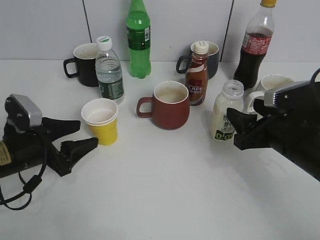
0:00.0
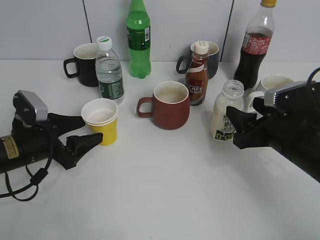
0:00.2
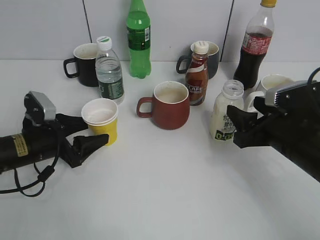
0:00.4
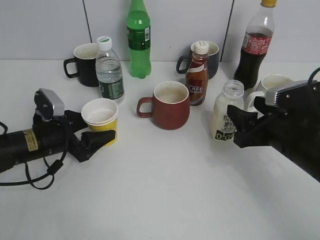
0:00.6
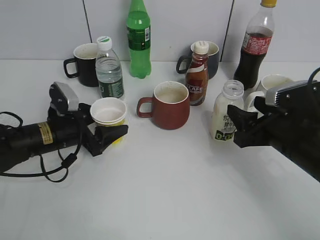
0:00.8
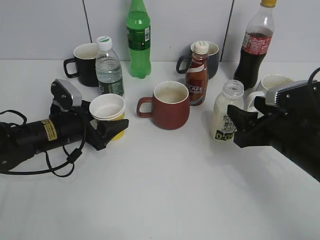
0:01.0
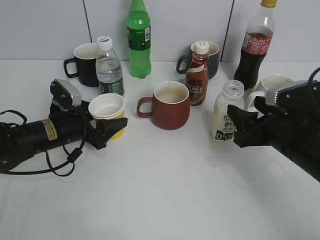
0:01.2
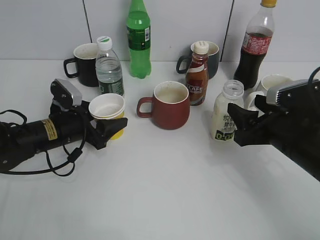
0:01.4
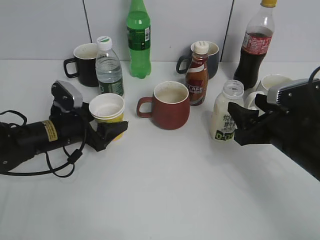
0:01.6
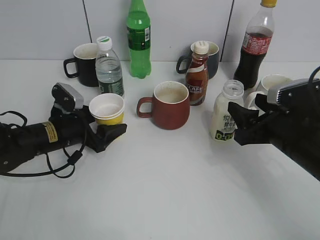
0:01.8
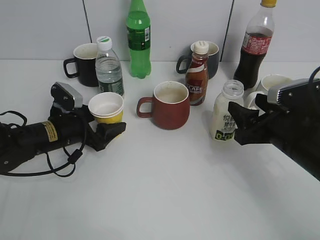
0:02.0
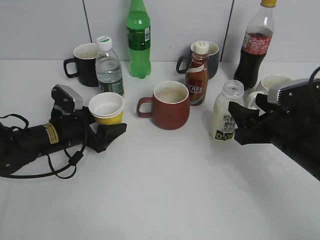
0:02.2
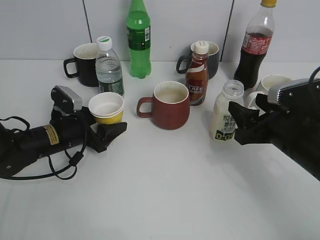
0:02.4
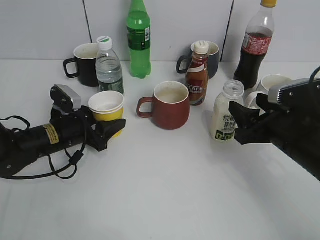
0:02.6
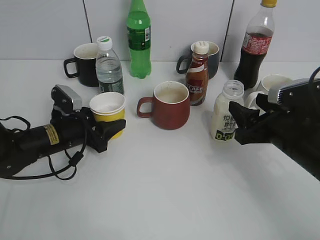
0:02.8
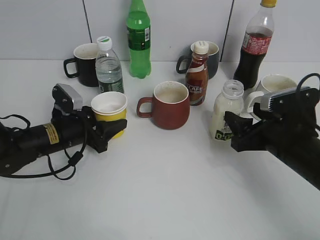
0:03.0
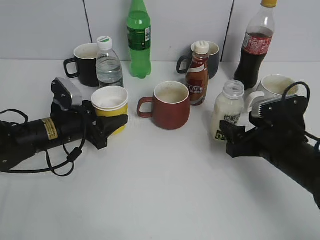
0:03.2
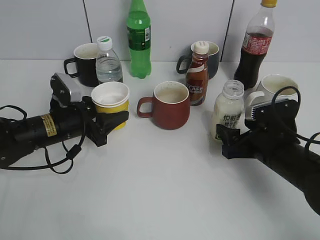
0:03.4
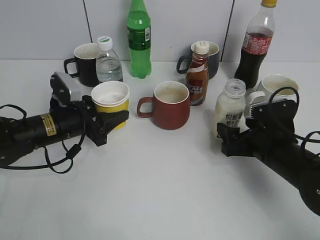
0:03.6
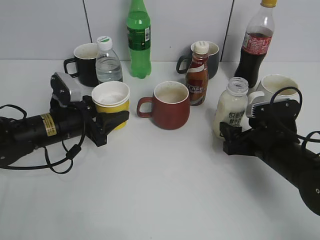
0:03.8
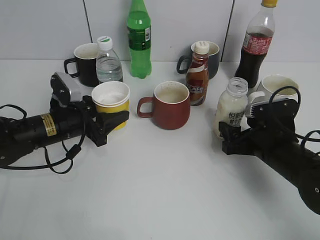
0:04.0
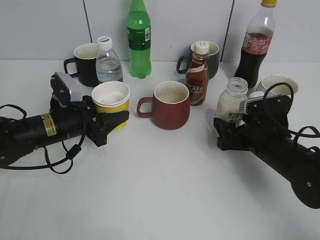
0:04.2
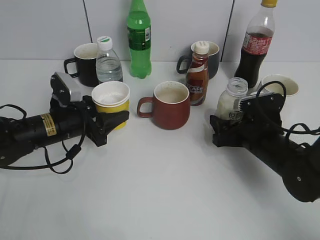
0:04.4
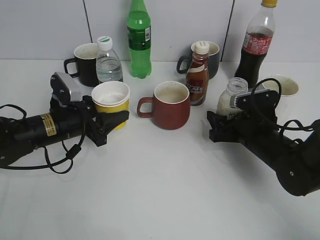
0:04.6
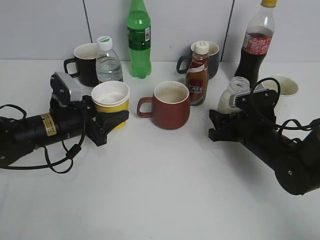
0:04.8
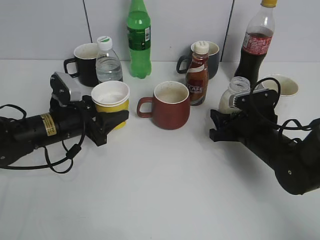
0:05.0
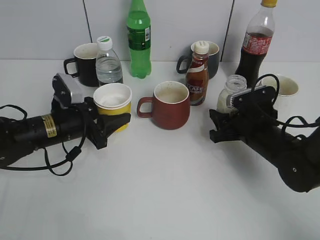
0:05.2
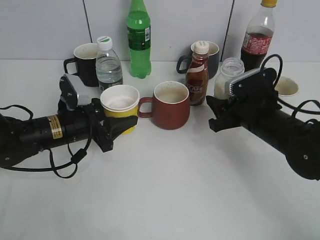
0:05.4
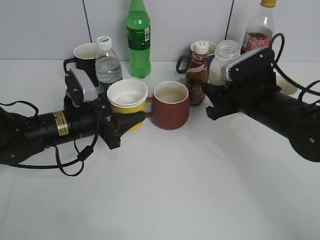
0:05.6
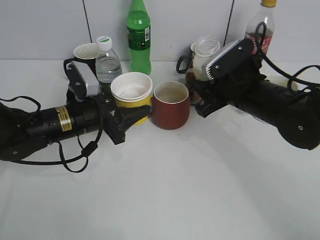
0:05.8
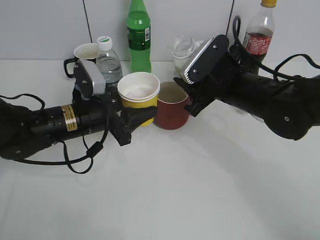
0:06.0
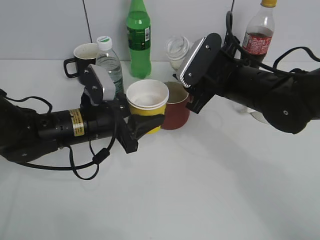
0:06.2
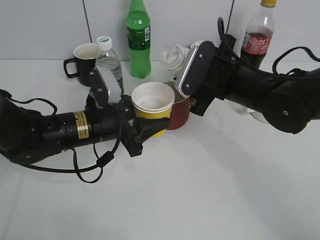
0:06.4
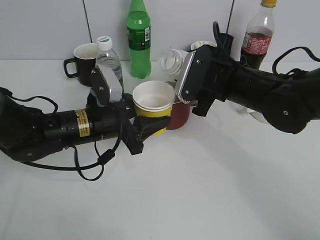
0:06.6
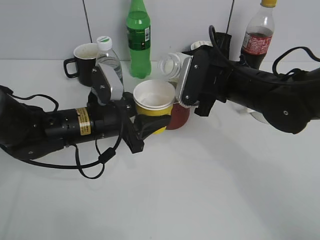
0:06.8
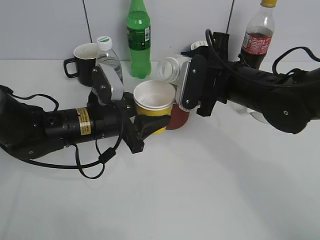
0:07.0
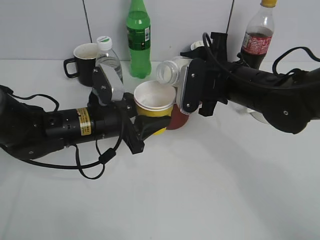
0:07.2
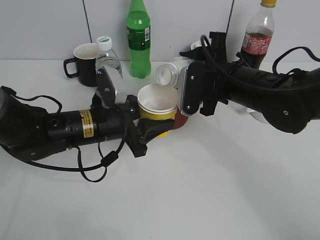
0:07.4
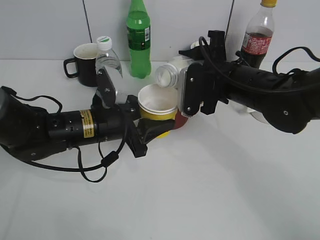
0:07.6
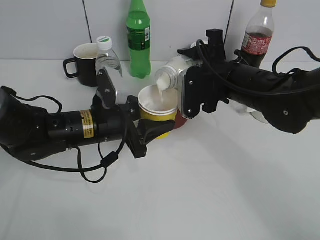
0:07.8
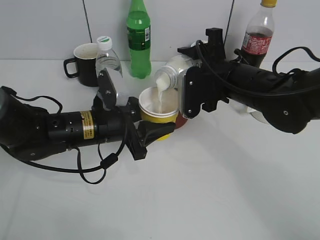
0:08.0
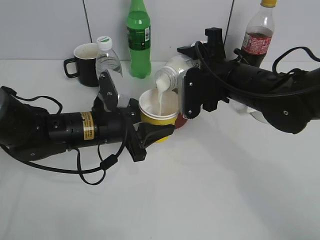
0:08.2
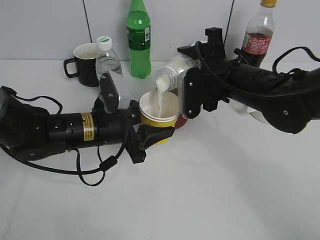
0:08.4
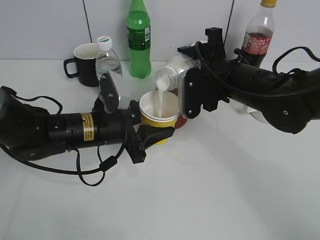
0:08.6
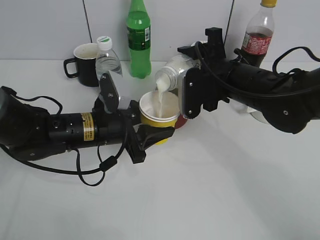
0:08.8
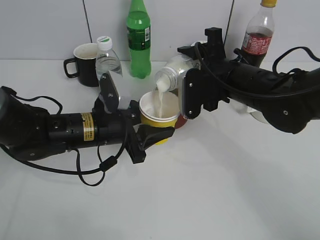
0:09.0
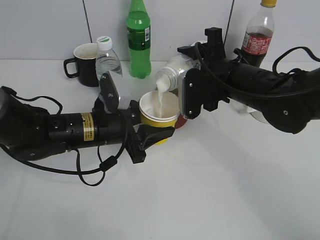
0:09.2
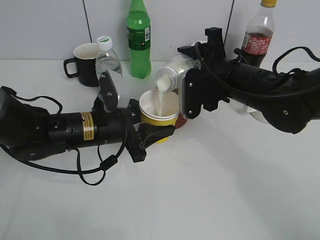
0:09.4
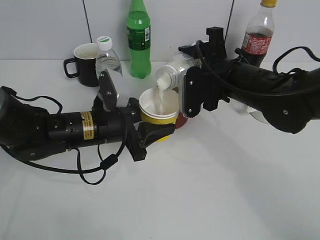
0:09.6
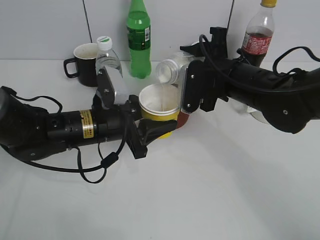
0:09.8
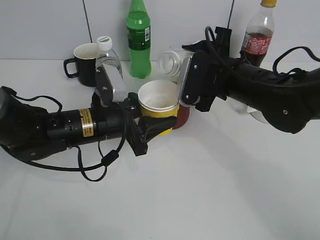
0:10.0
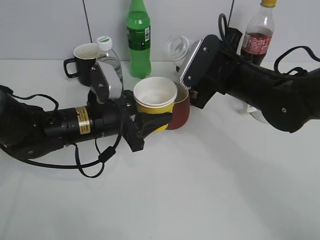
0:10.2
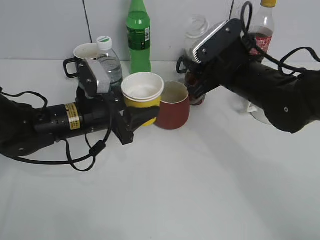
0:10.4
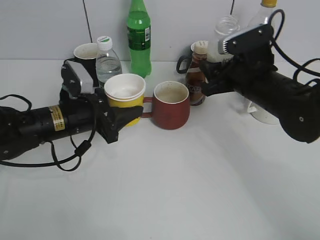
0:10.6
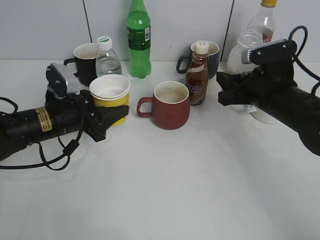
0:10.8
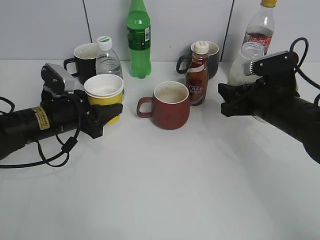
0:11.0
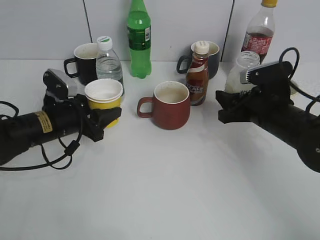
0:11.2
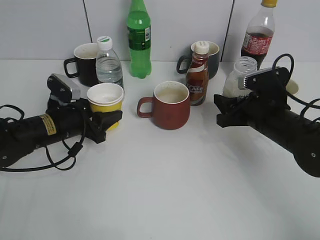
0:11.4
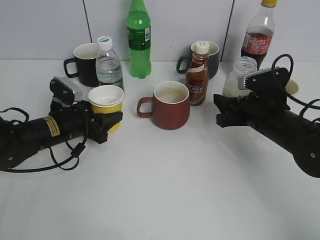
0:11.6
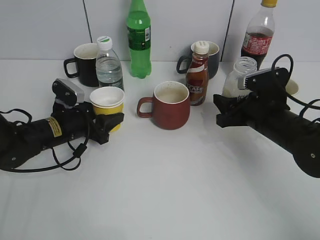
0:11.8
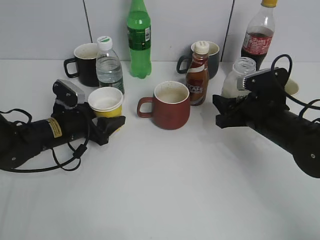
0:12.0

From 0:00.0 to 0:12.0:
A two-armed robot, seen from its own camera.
Step, from 0:00.0 to 0:02.6: Grasp the yellow paper cup with left gripper.
Step, from 0:02.8 to 0:03.4: Lift the yellow paper cup with left gripper.
Step, from 0:03.8 to 0:04.8: Grasp the bottle with yuexian Milk with right gripper.
Step, from 0:05.0 to 0:09.8: Pour the yuexian Milk from bottle to cup with right gripper.
From 0:00.0 to 0:01.6: The left gripper is displaced forward by some 5 cm.
From 0:01.6 to 0:03.0: The left gripper closes its fingers.
From 0:03.0 to 0:04.4: The right gripper travels downward by some 5 cm.
From 0:04.4 to 0:06.0: The right gripper shifts about 10 cm upward and to the left, and closes. The left gripper moves to the right, some 5 cm.
From 0:07.6 to 0:09.0: The grippers make only small movements.
From 0:10.4 to 0:12.0: The left gripper heads to the left and downward, covering roughly 10 cm, and opens its fingers, while the right gripper goes some 10 cm downward and to the right.

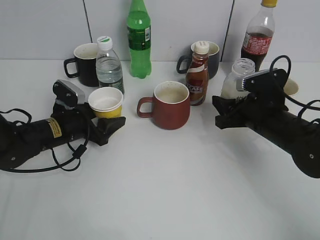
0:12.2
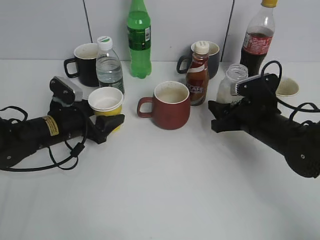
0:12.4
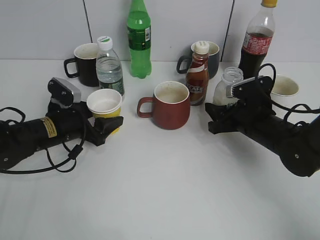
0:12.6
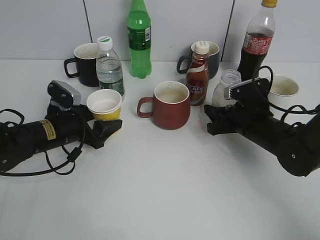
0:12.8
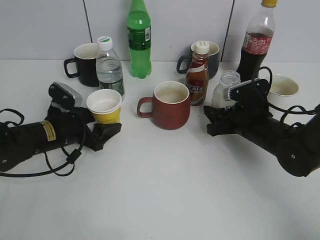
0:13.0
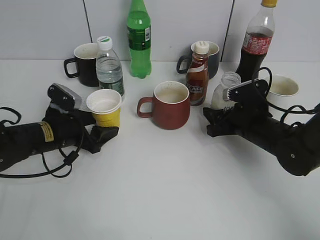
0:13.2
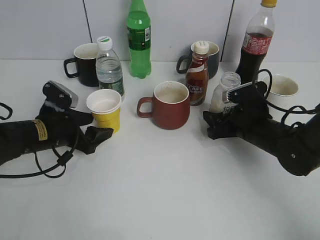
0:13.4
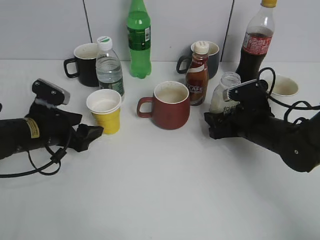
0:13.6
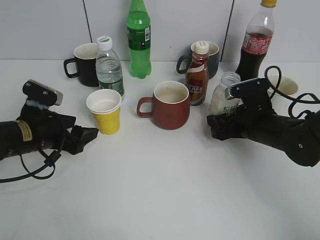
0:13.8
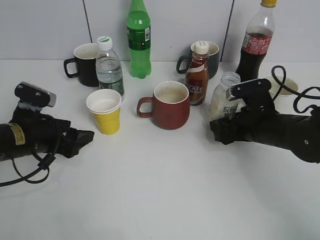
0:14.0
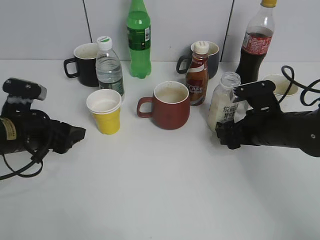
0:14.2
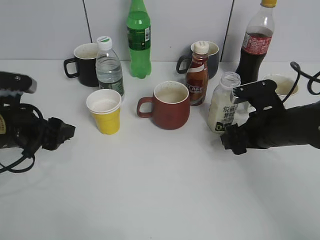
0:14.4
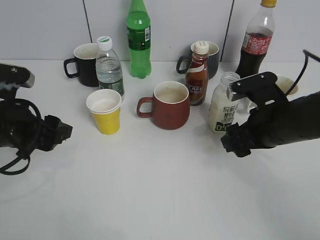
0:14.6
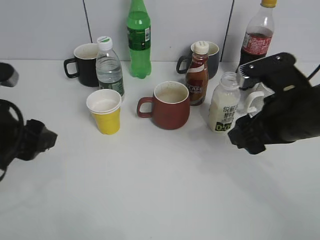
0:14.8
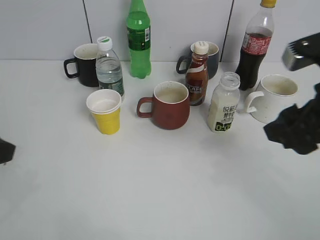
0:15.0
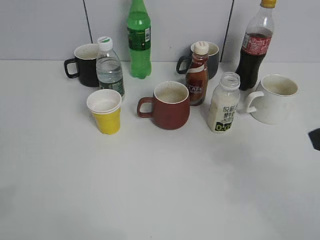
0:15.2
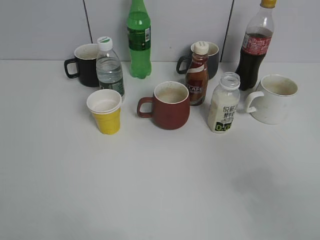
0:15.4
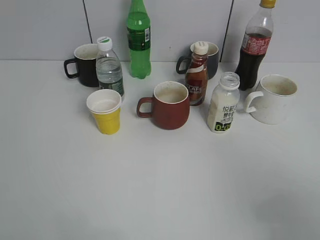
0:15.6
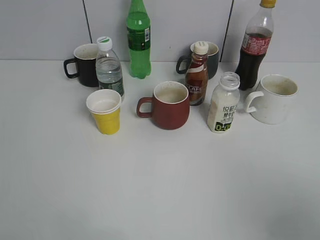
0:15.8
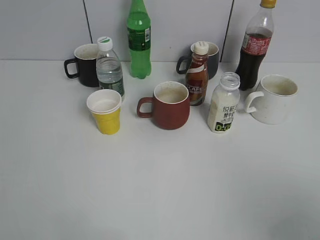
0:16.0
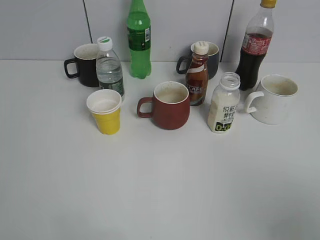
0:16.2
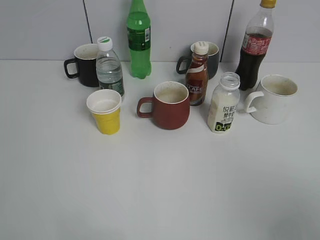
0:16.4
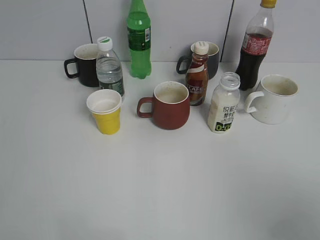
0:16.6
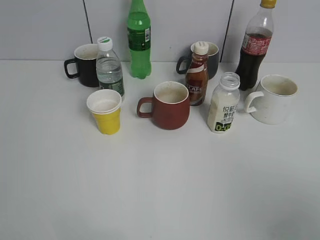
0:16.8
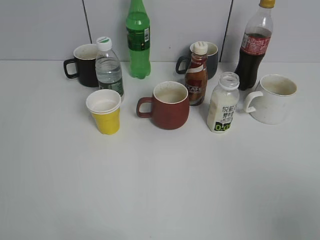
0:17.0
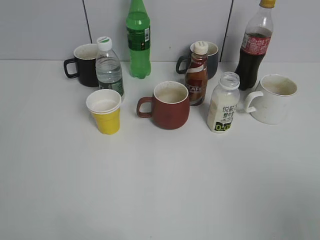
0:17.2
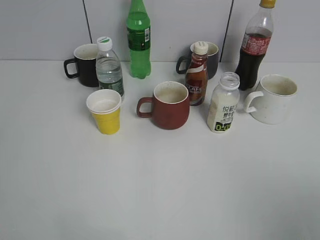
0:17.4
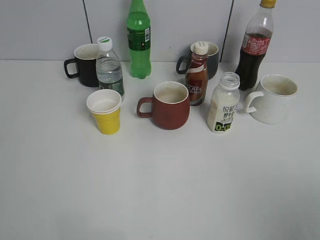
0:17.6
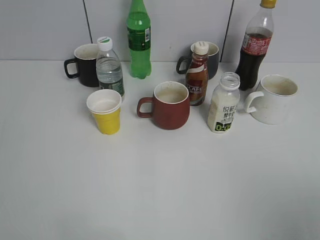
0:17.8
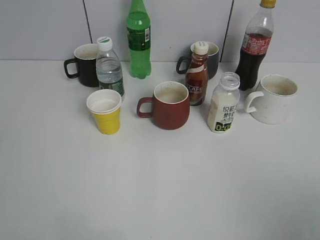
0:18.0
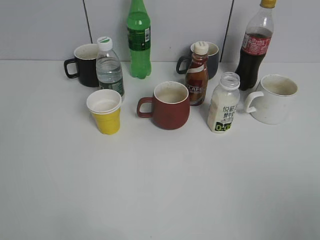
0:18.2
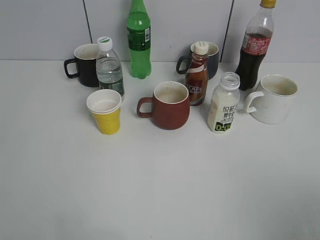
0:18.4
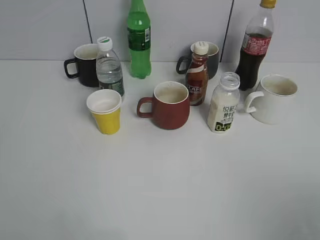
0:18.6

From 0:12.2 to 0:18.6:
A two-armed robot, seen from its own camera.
From 0:12.2 to 0:13.8: The left gripper moves roughly 5 cm. Meanwhile the right gripper opens.
From 0:13.8 to 0:15.4: The two grippers go approximately 30 cm backward and upward. The right gripper closes.
From 0:15.4 to 0:17.0: The right gripper shifts about 10 cm backward.
